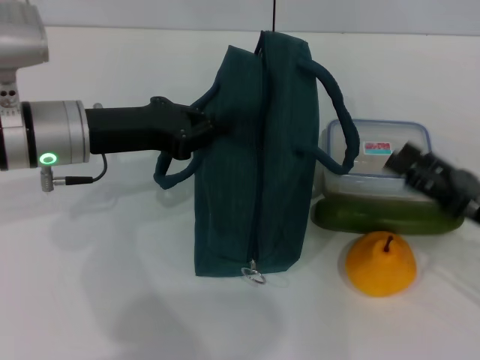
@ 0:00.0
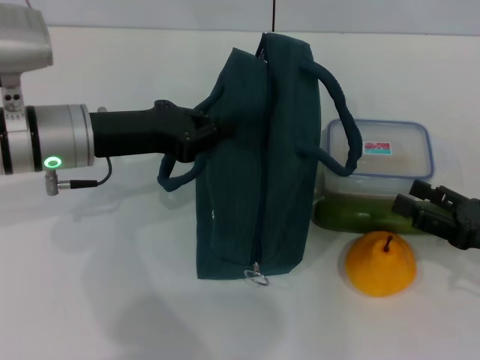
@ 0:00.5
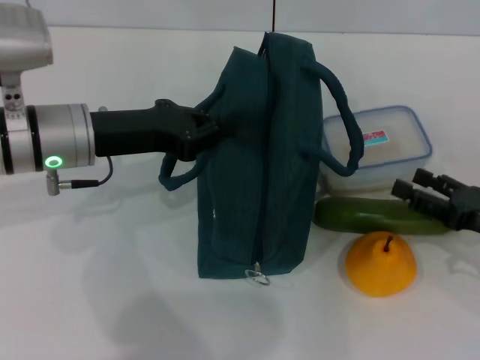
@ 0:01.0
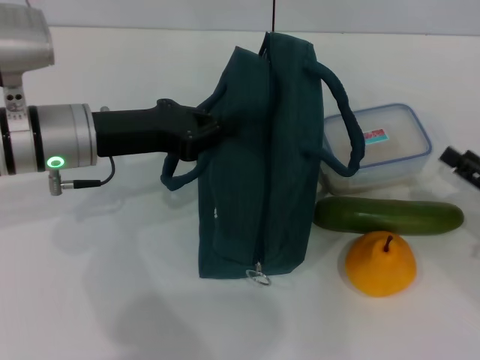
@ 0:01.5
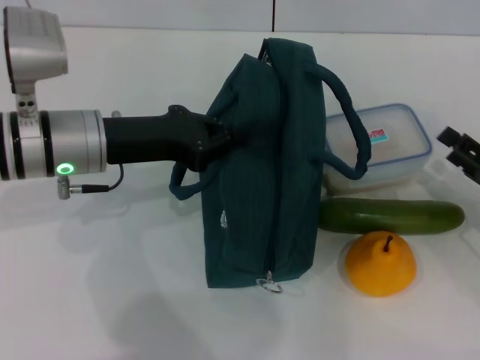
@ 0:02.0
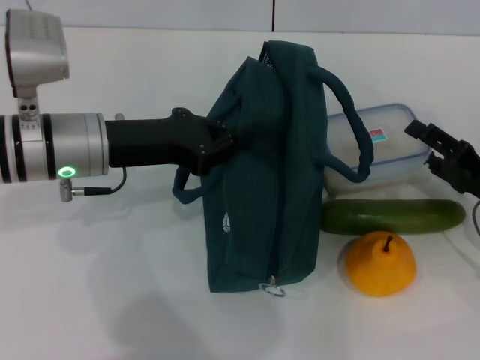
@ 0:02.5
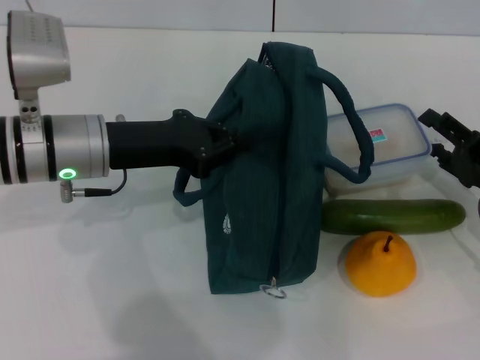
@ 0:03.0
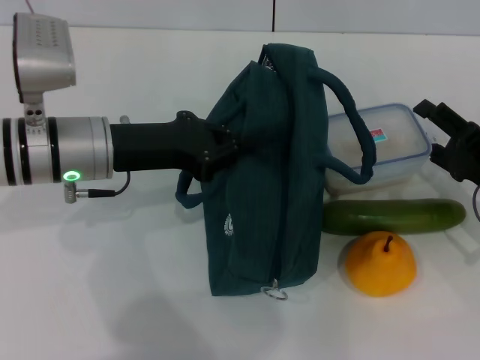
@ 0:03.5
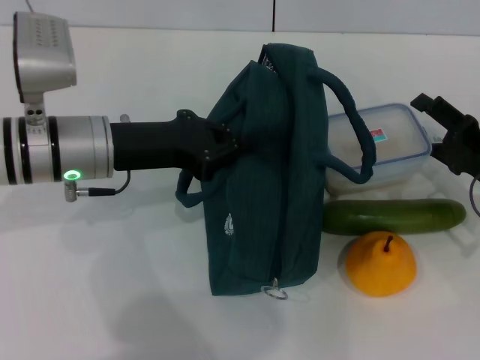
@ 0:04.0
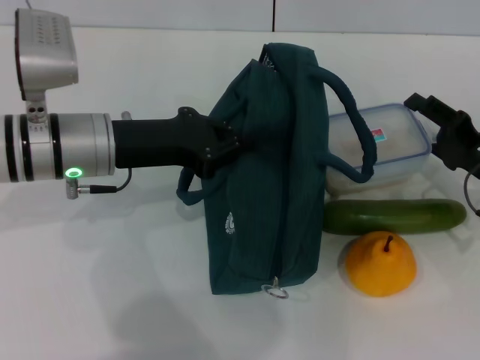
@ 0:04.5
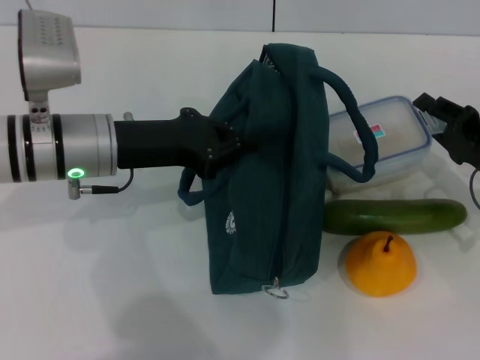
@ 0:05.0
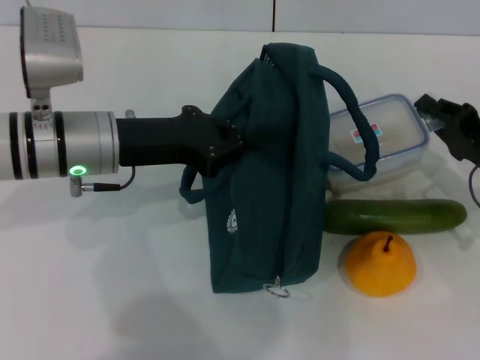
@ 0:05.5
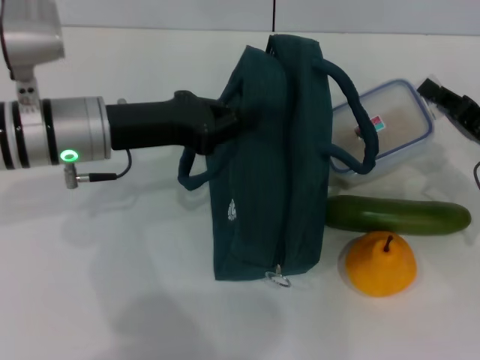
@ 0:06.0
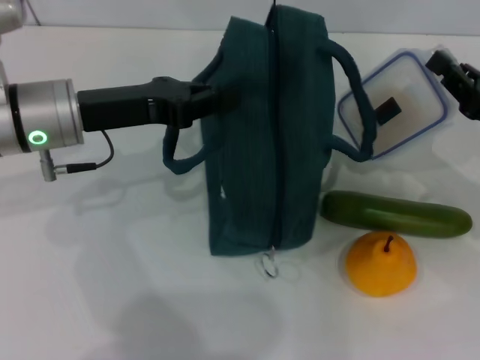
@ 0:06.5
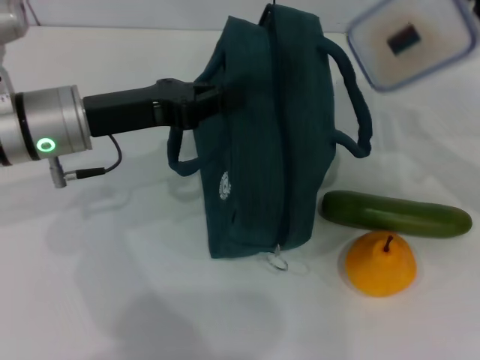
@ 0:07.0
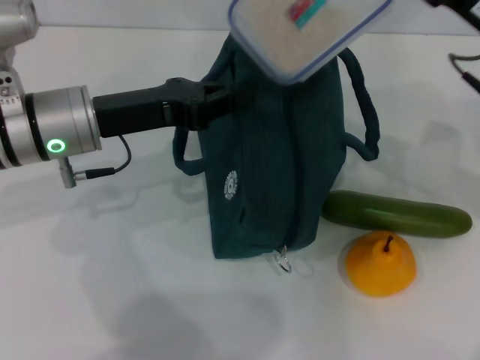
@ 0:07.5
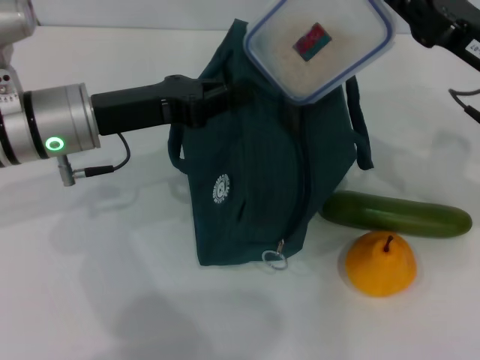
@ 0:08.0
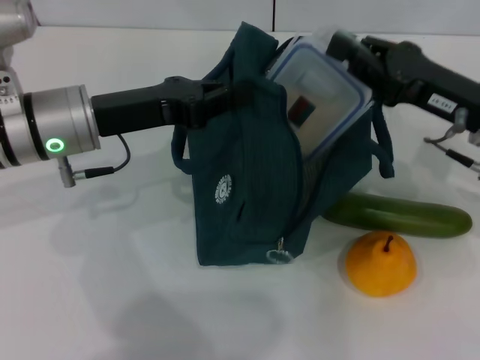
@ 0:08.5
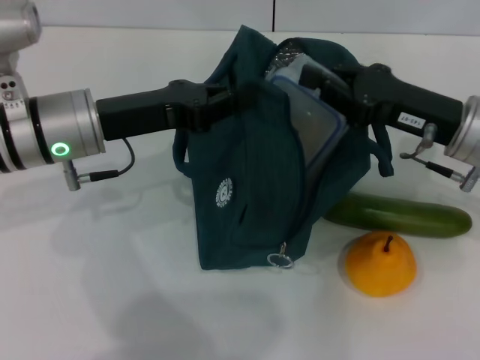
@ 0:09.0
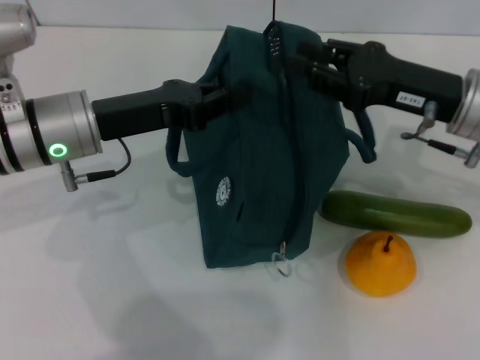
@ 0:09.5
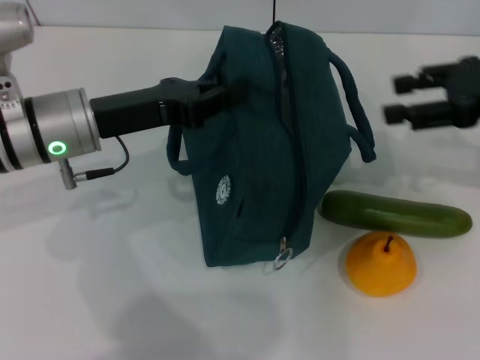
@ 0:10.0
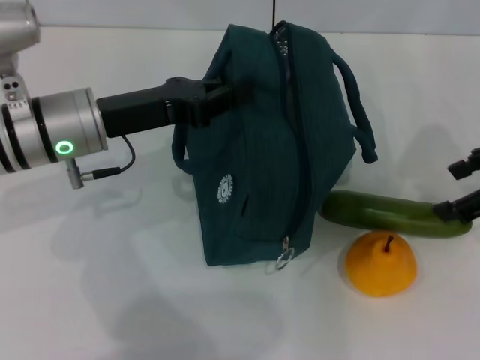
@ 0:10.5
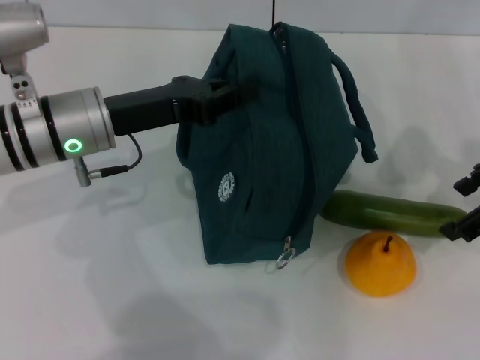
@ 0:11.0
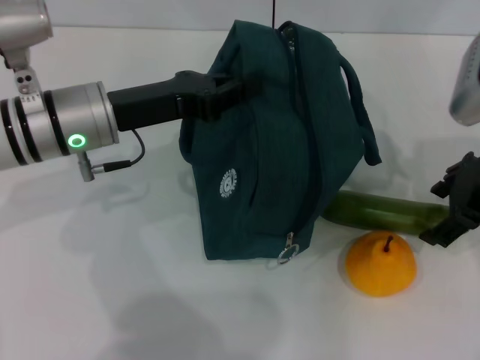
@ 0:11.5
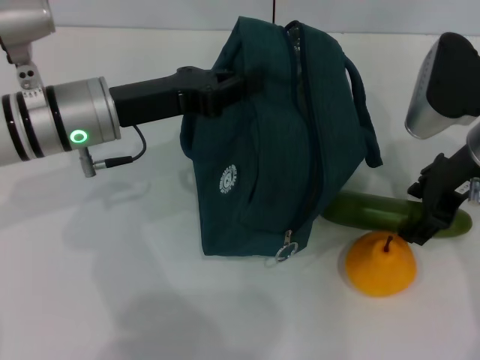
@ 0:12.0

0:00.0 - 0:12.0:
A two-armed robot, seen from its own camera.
Step, 0:00.0 - 0:05.0: Pick up the lunch box with your right hand.
Step, 0:05.5 - 0:09.5: Place the lunch box into the lunch bag with your right hand.
0:02.0 - 0:04.0: The right gripper shifts by roughly 5 cm.
0:04.0 - 0:06.0: The right gripper closes up.
0:06.0 - 0:08.0: The right gripper shifts roughly 10 cm upward and to the left.
0:08.0 - 0:10.0: The right gripper moves to the right, roughly 5 cm, and opens.
0:10.0 - 0:12.0: The right gripper goes about 10 cm to the left.

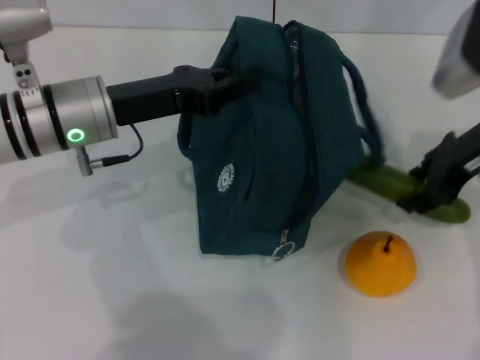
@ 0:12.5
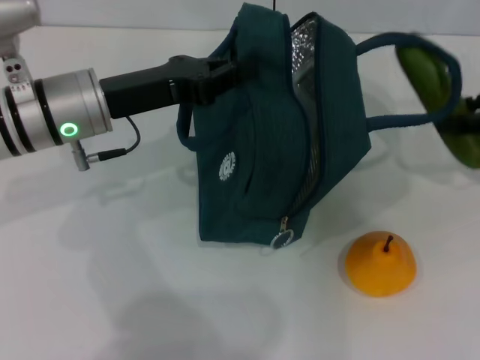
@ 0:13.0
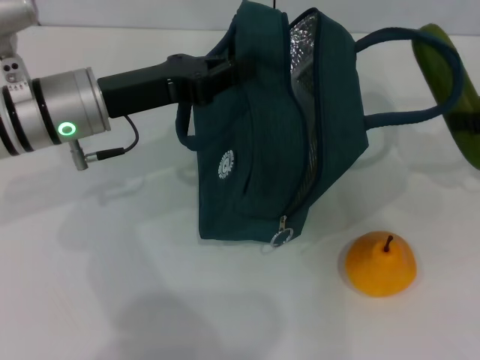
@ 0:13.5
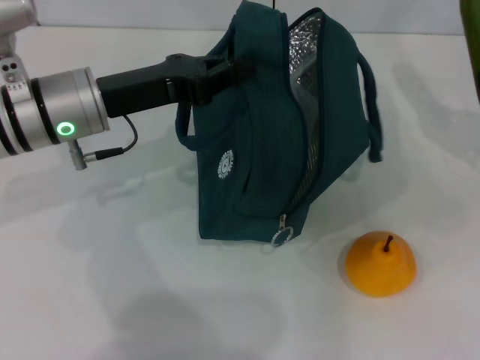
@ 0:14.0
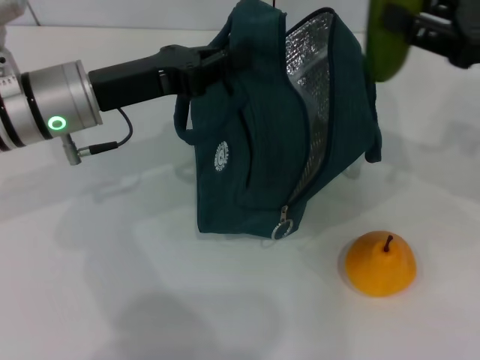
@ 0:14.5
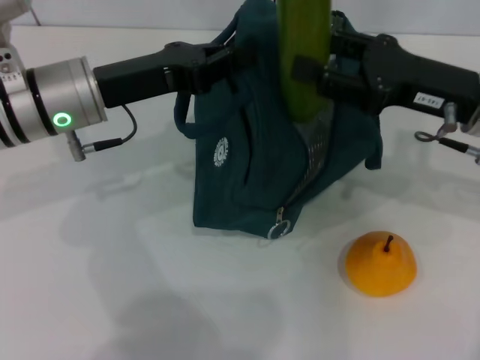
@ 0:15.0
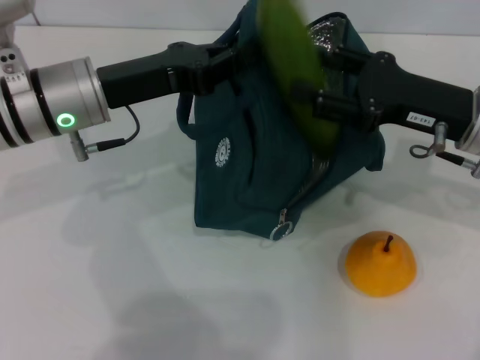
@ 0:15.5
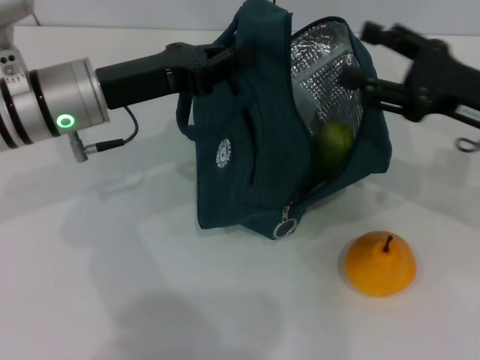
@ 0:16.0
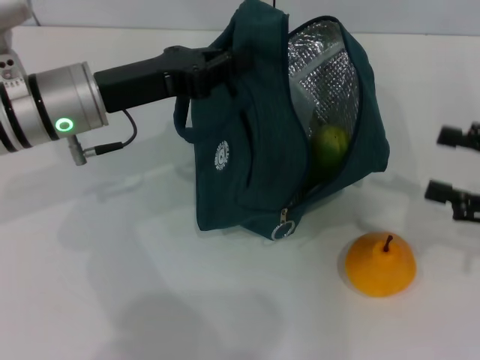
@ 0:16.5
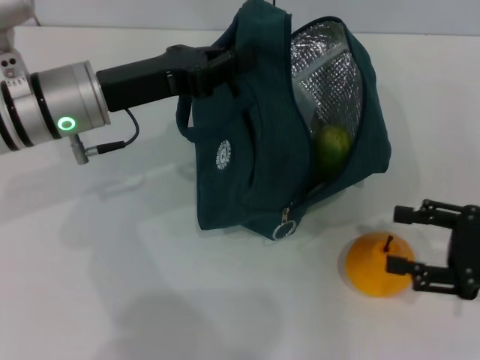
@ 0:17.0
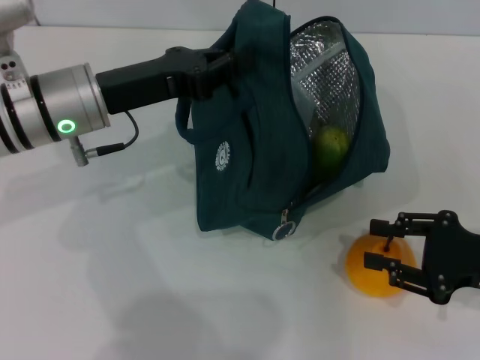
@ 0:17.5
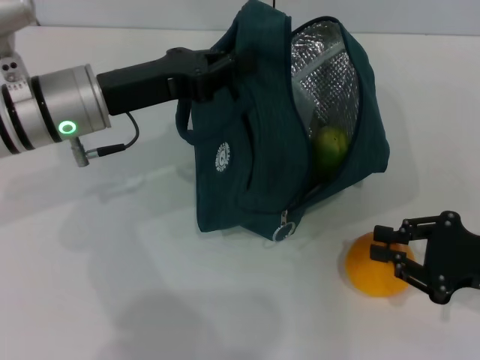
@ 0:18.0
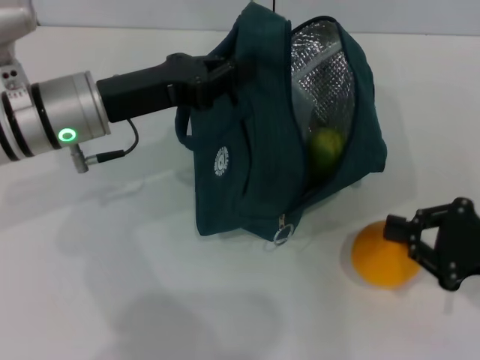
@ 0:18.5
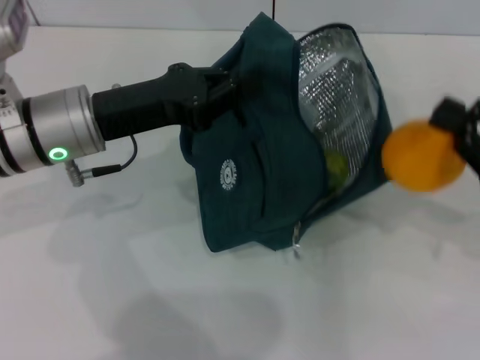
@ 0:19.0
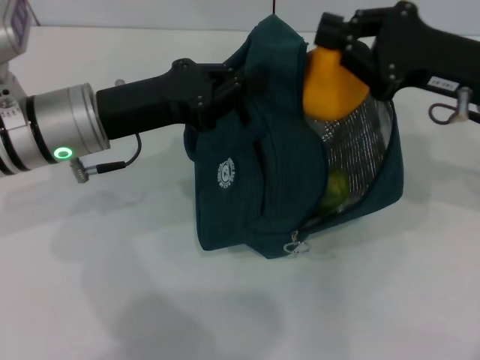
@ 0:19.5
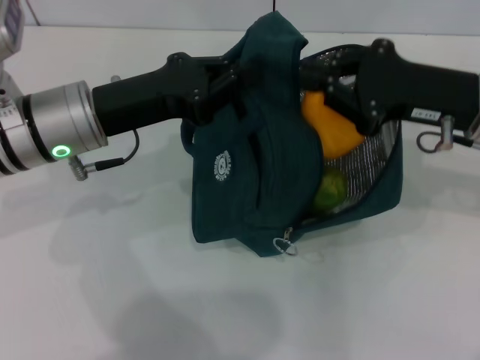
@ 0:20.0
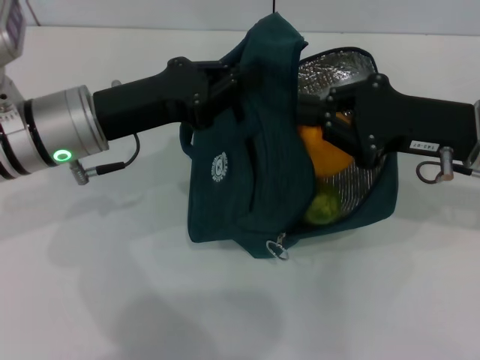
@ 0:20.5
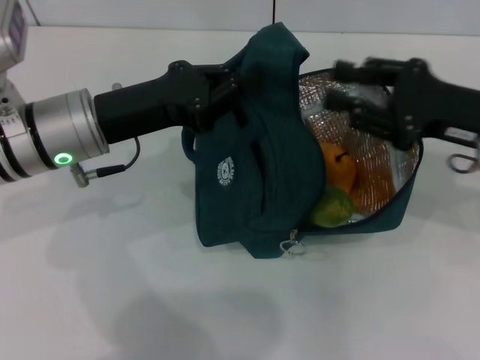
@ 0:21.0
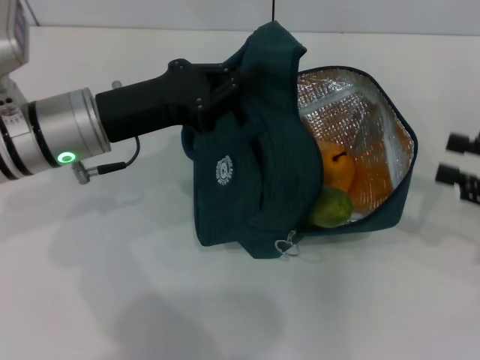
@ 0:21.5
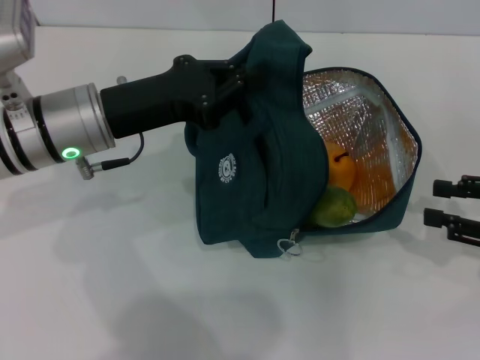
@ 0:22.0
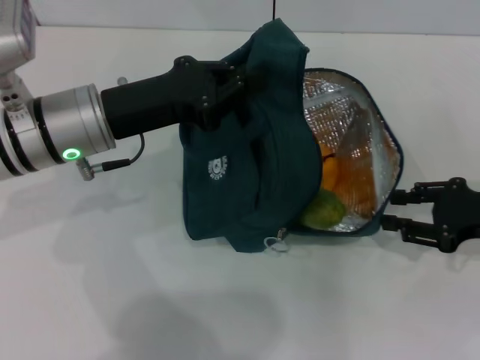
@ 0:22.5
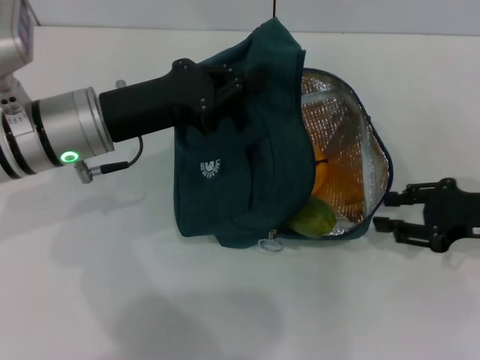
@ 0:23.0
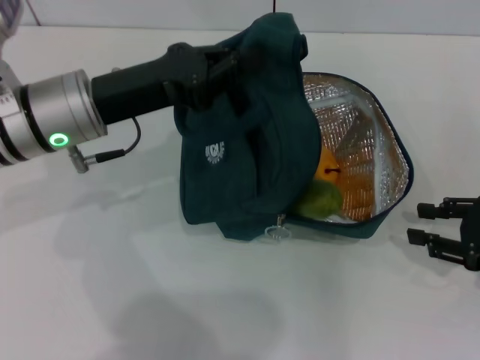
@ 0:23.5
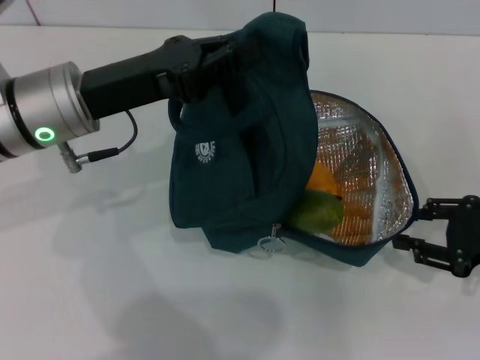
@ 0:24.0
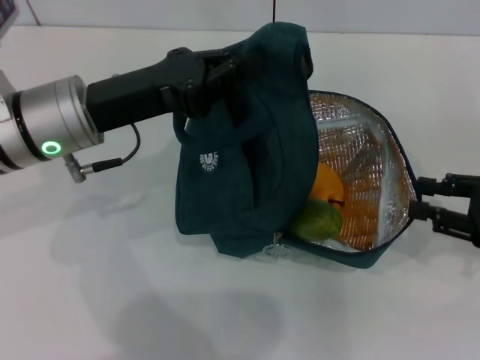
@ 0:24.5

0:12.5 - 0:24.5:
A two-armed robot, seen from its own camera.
Step, 0:12.5 - 0:16.0: Put the cucumber into the lunch bag with your right hand.
Step, 0:16.5 - 0:18.0: Grab the pear with your right hand.
0:12.5 - 0:14.5: The right gripper travels to the right by about 5 cm.
0:14.5 - 0:16.5: The right gripper heads backward, downward and to the right, covering roughly 10 cm.
0:16.5 - 0:18.5: The right gripper goes some 5 cm downward, and closes up.
0:18.5 - 0:20.5: The right gripper shifts approximately 15 cm forward, to the left and upward.
0:20.5 - 0:22.5: The right gripper travels to the right and downward by approximately 10 cm, and opens.
0:22.5 - 0:24.5: The grippers make only small movements.

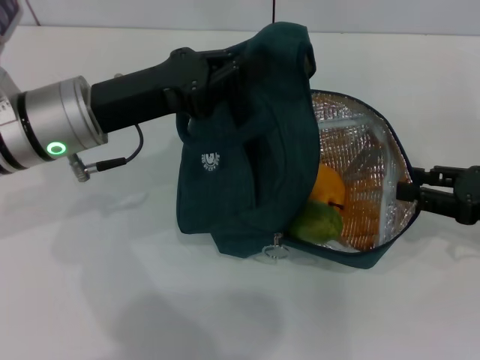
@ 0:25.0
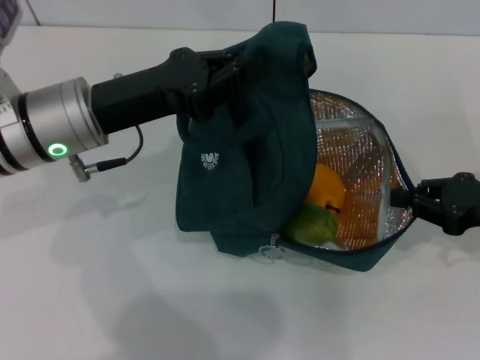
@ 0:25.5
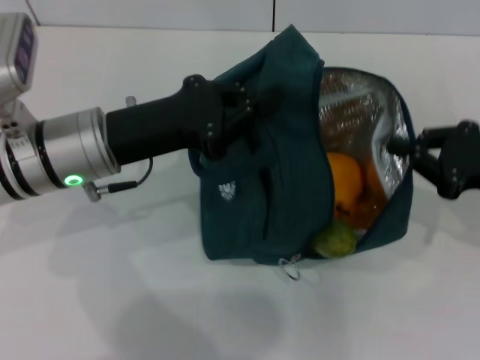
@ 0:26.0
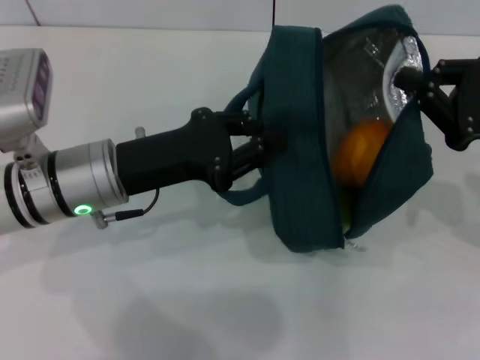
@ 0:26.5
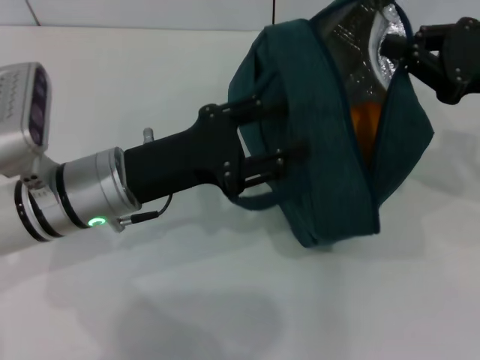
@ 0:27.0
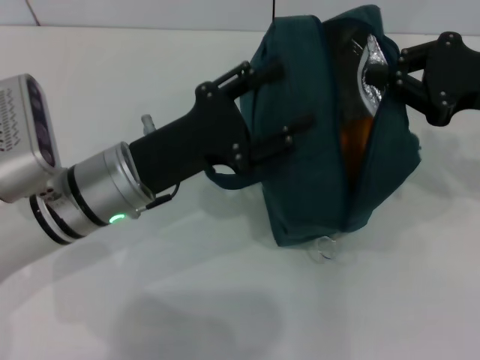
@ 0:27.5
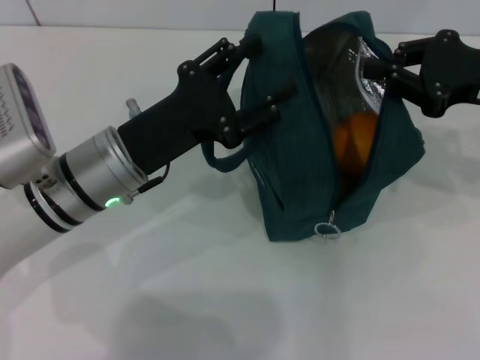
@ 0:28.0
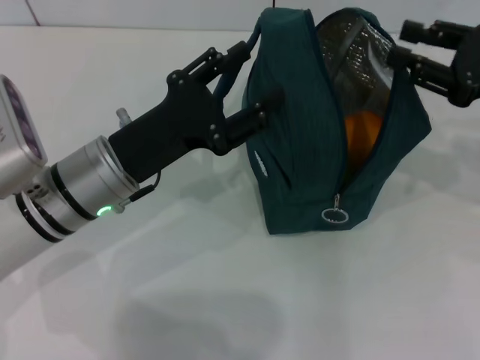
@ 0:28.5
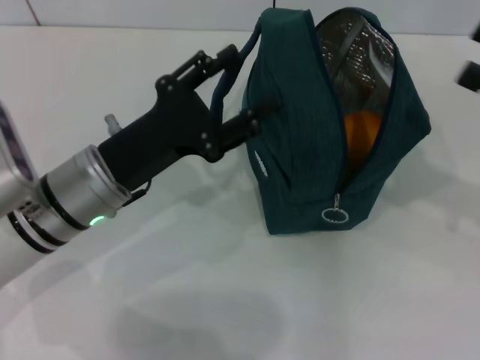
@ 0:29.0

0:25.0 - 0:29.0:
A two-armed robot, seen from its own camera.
Step, 0:25.0 - 0:28.0: Hold the lunch bag with your right hand.
0:25.0 - 0:27.0: The right gripper is displaced upward and forward by some 10 cm, and closes up; the left gripper ends up about 5 cm from where it was, and opens.
0:27.0 - 0:29.0: The left gripper opens, while the right gripper travels backward and to the right by some 10 cm, and opens.
